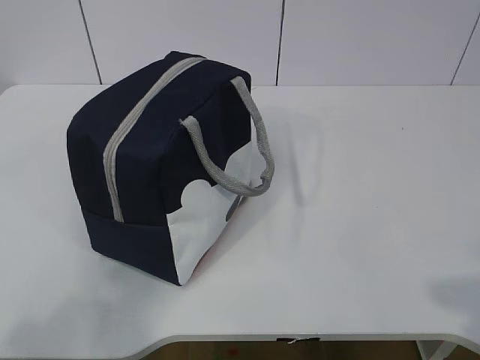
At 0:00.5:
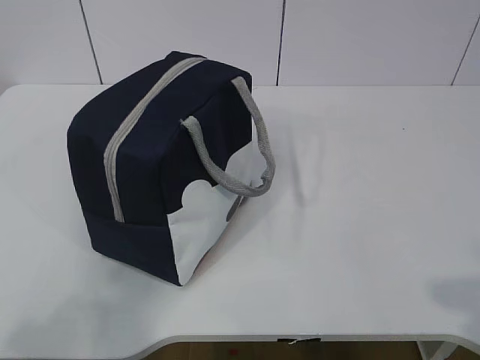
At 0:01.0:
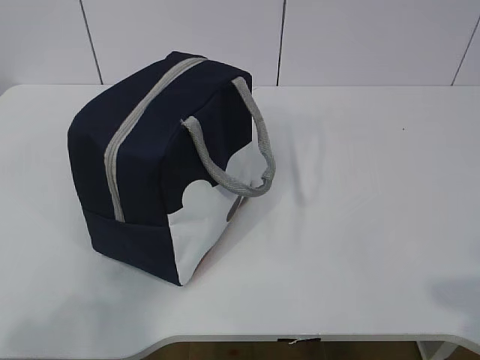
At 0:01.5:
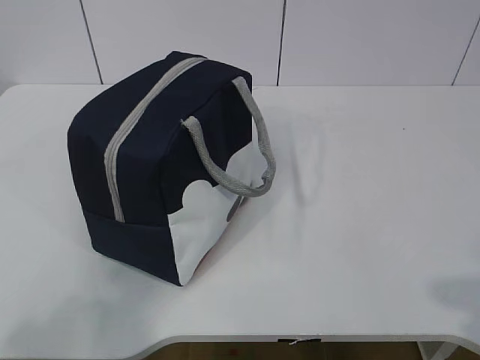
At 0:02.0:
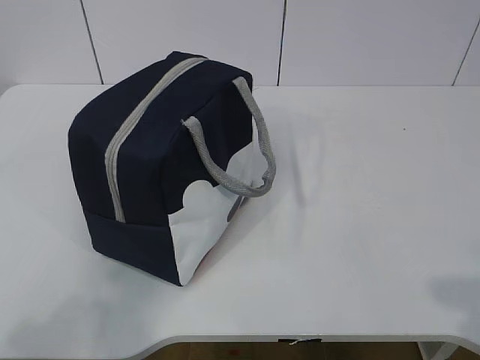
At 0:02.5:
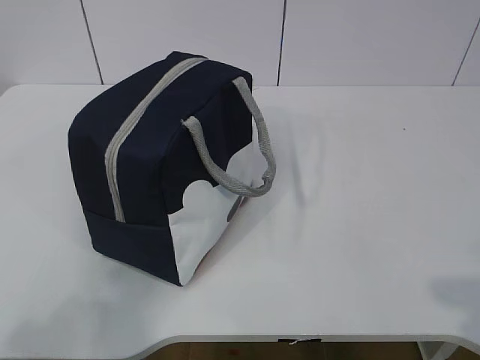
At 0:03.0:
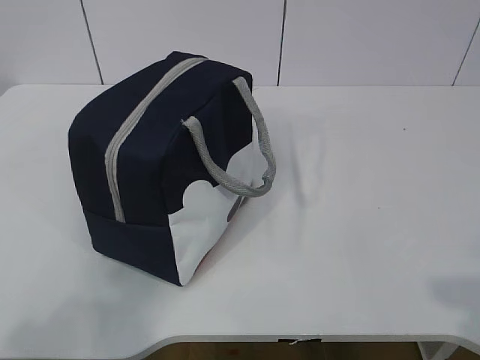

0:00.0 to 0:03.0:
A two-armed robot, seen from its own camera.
0:00.0 to 0:03.0: Both grippers stay put.
